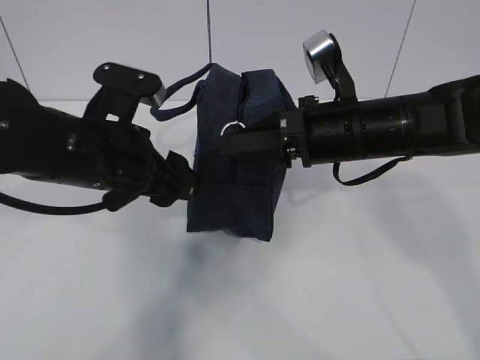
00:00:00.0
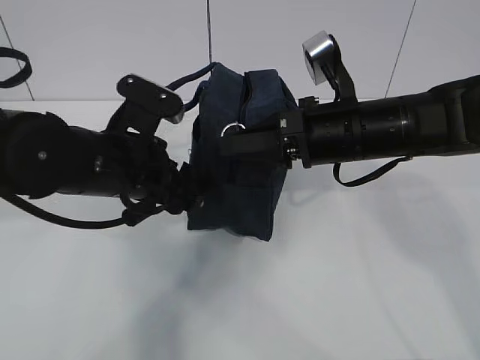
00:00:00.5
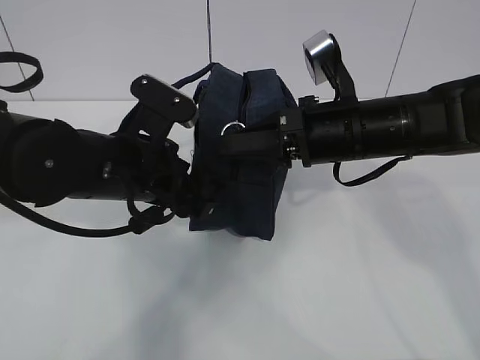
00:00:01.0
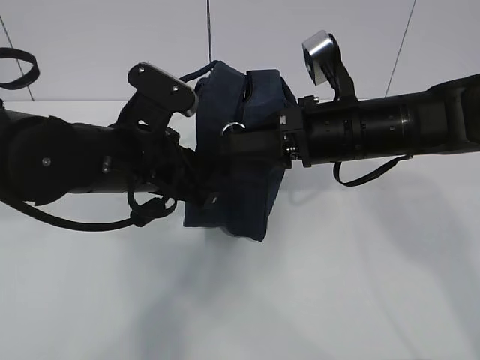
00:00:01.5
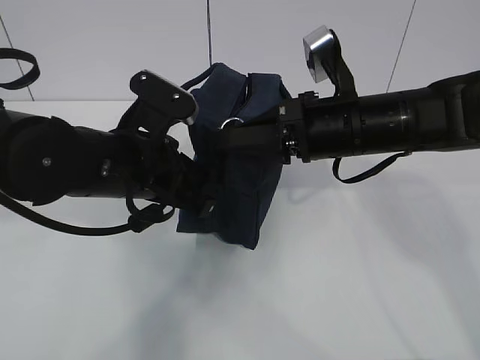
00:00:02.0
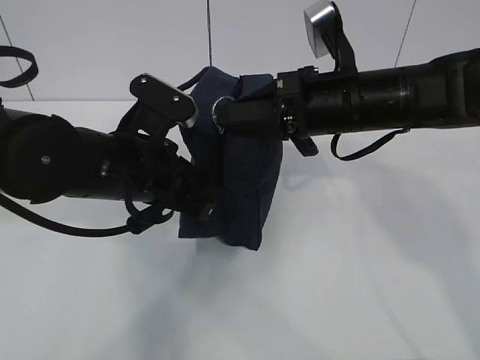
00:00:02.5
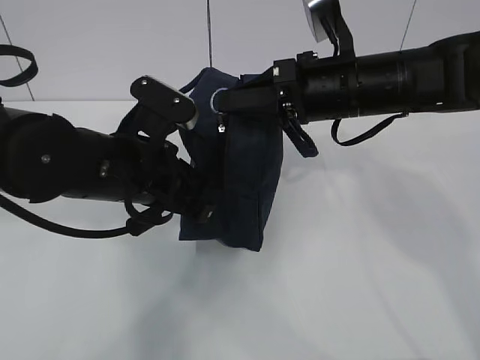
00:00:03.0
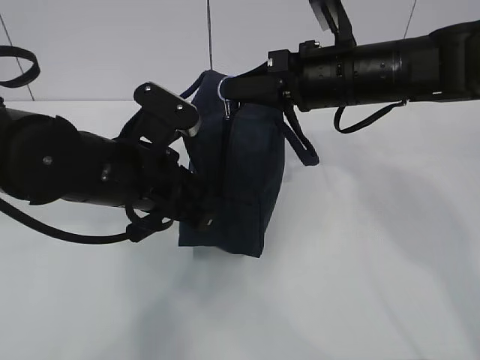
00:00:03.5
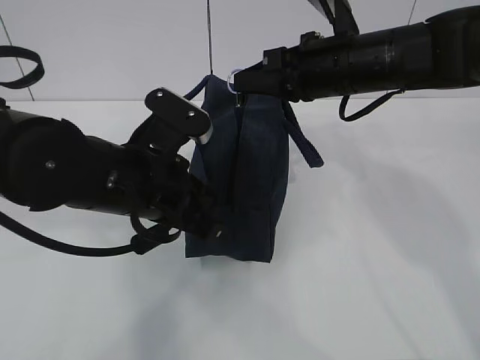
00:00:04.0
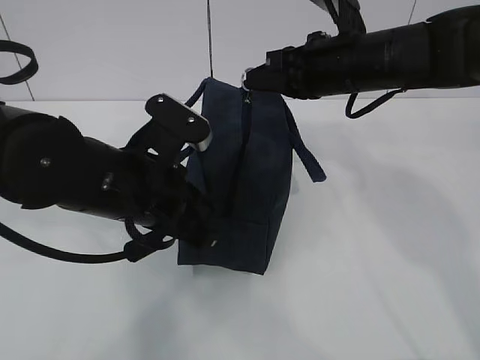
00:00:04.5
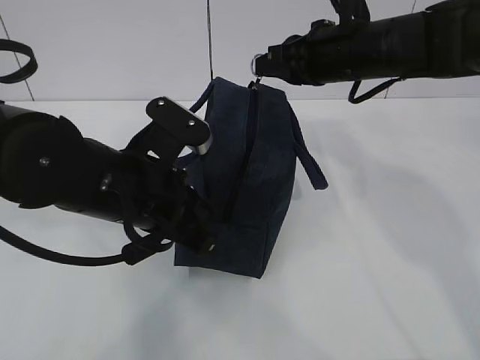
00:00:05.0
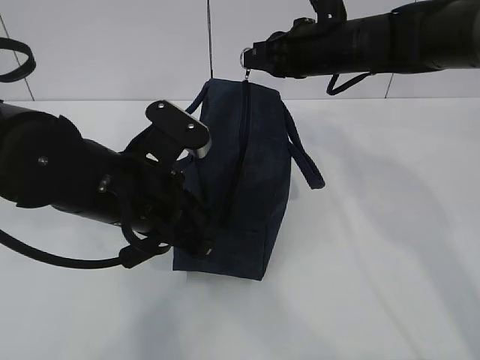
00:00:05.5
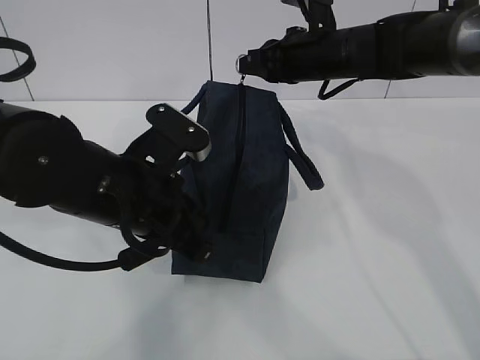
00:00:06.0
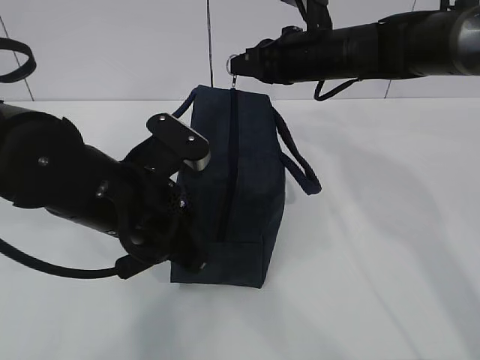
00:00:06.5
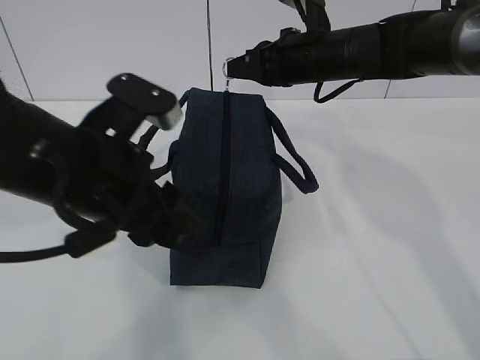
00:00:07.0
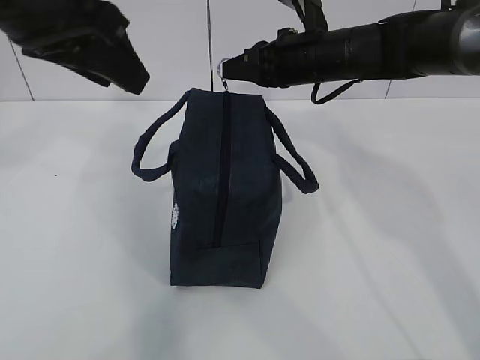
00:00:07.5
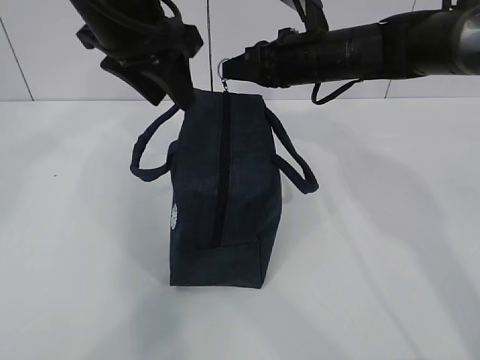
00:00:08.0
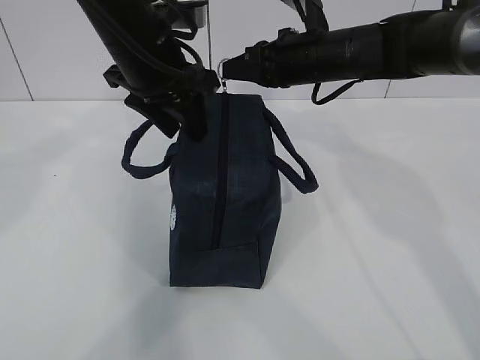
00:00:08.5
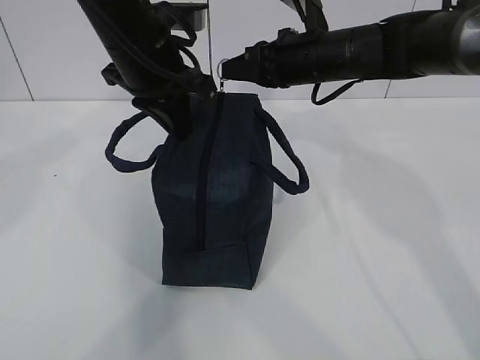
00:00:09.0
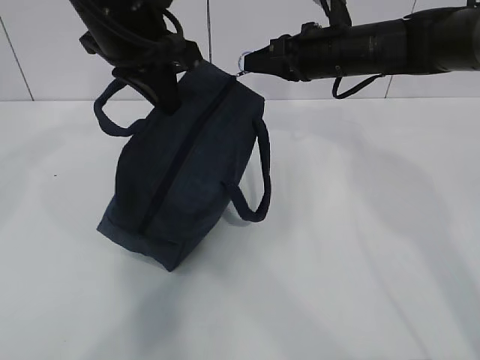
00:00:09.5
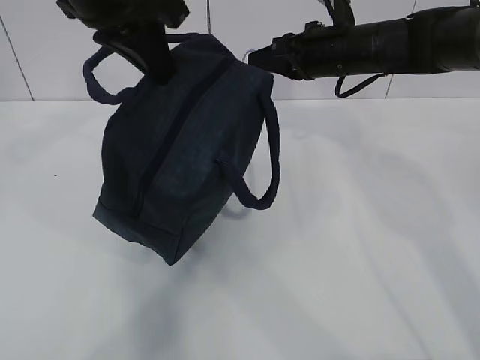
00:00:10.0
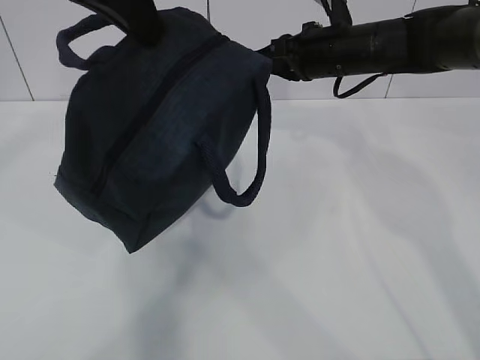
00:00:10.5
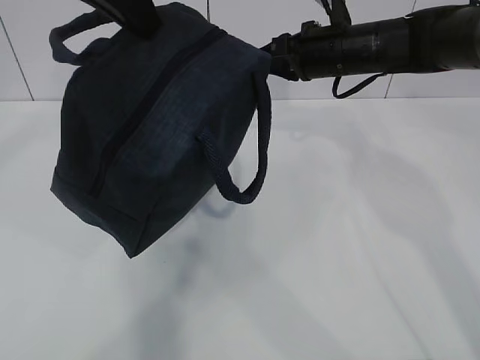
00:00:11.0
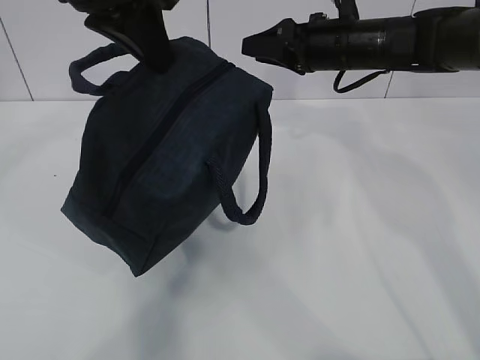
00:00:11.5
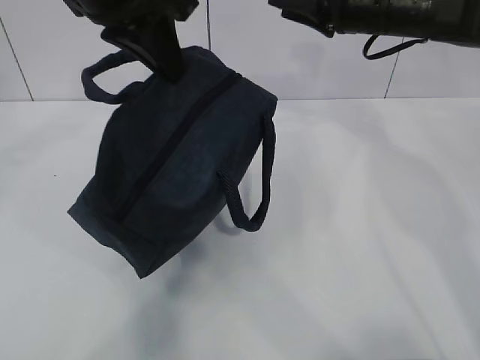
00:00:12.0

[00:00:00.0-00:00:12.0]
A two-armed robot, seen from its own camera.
Step, 00:00:00.5 to 00:00:01.5: Grab the lunch bag with your left hand.
00:00:00.0 to 00:00:02.0: The left gripper closes.
00:00:02.0 to 00:00:04.0: The right gripper ends up roughly 5 cm from where it was.
00:00:04.0 to 00:00:06.0: The right gripper moves forward, some 10 cm.
00:00:06.0 to 00:00:08.0: The left gripper shifts some 15 cm upward and forward, and opens.
00:00:08.0 to 00:00:10.0: The left gripper closes up.
00:00:10.0 to 00:00:12.0: The right gripper shifts some 5 cm upward, and opens.

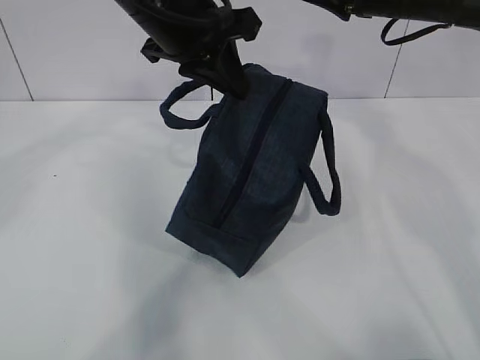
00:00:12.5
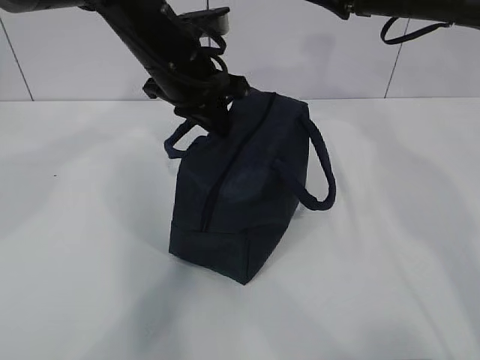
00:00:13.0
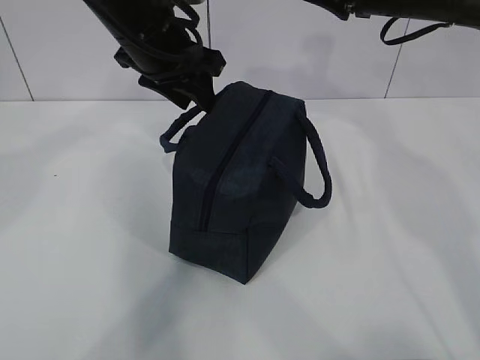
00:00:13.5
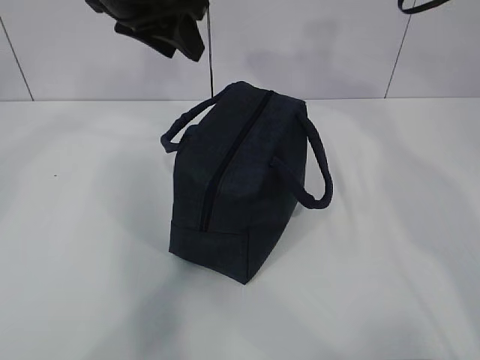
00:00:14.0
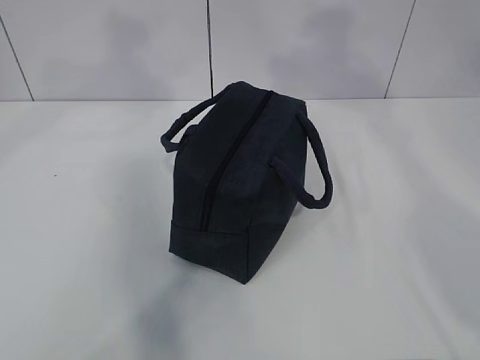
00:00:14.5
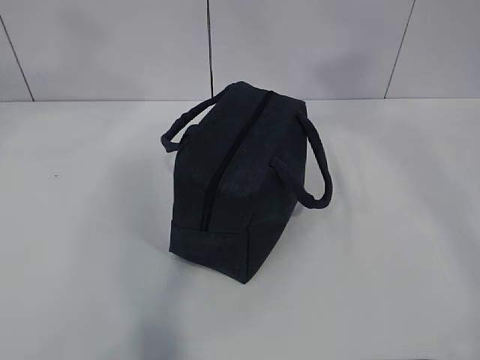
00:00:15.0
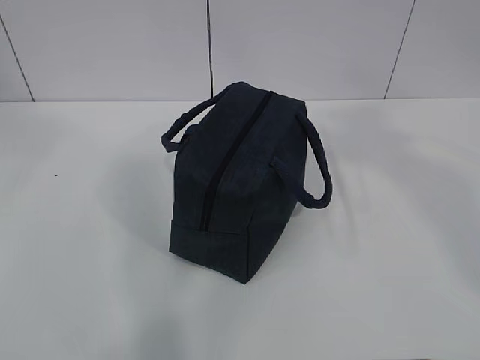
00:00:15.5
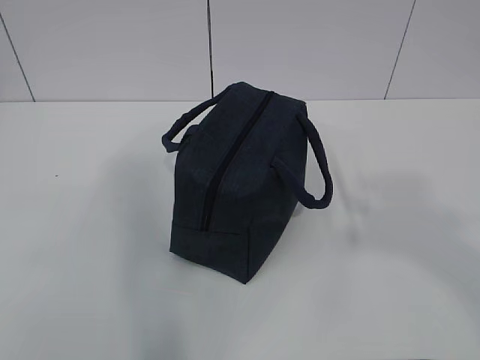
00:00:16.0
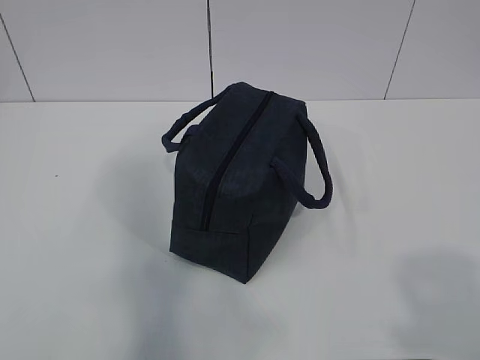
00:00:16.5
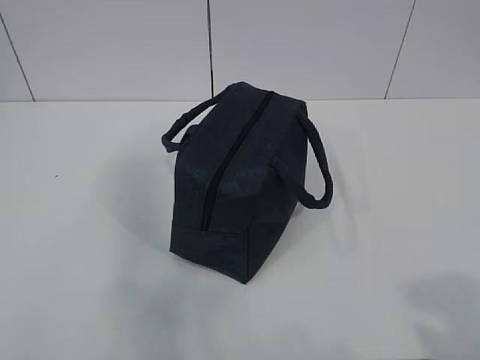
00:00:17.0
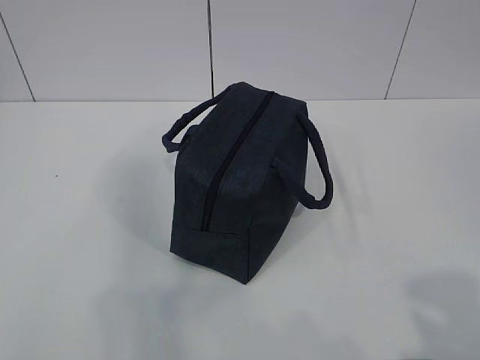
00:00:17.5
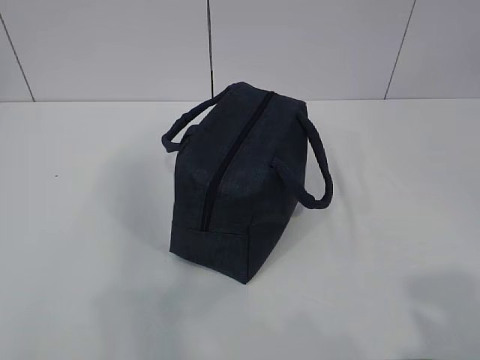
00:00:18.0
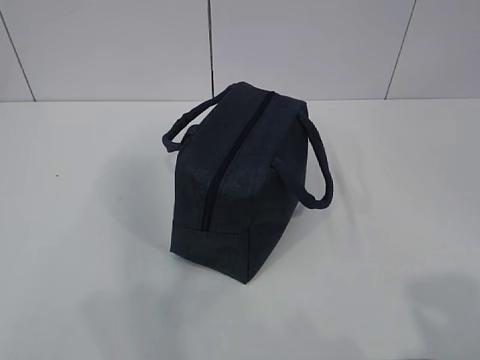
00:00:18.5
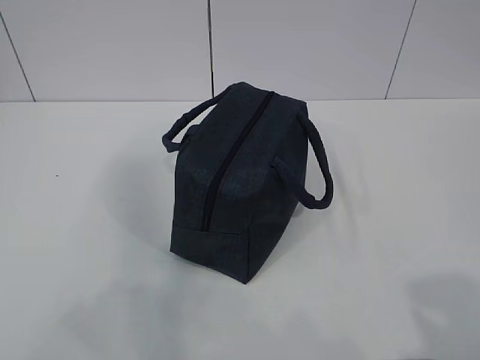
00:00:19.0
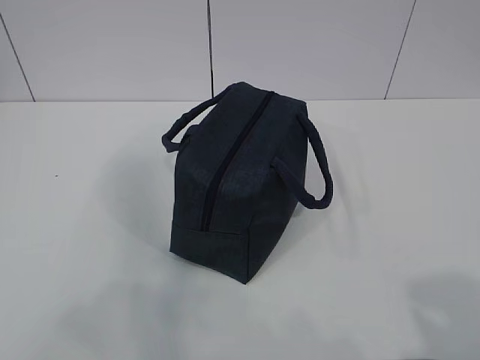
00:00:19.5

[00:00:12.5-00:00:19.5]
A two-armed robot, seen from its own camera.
00:00:12.5 to 00:00:14.5: The left gripper travels upward and to the left by approximately 15 cm, and opens up. Meanwhile the right gripper shifts approximately 20 cm upward and backward.
